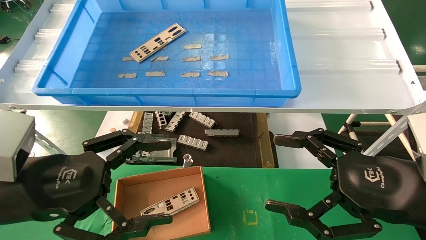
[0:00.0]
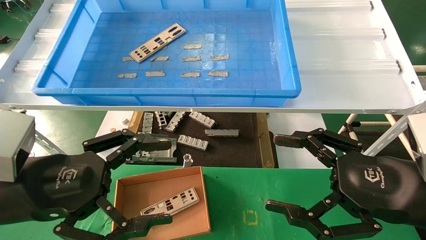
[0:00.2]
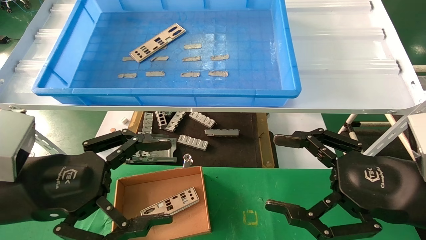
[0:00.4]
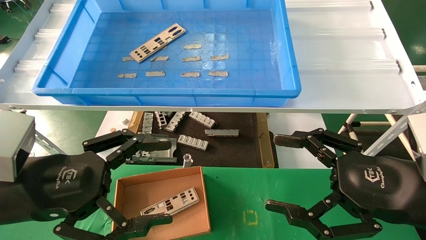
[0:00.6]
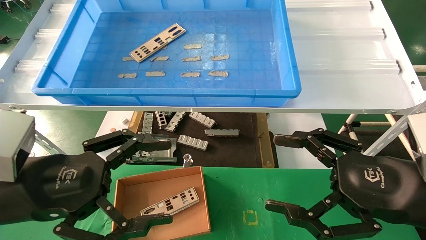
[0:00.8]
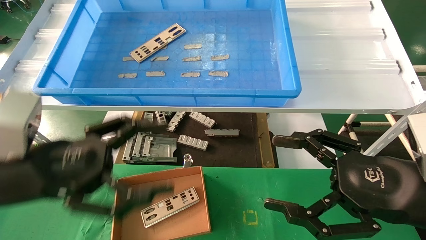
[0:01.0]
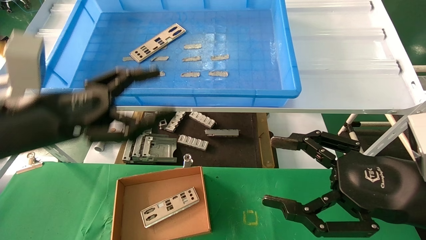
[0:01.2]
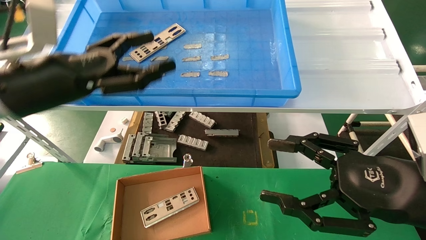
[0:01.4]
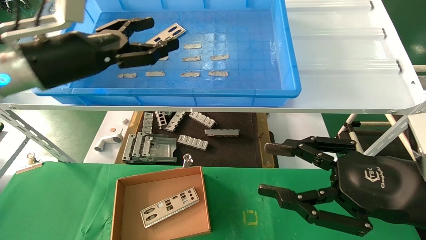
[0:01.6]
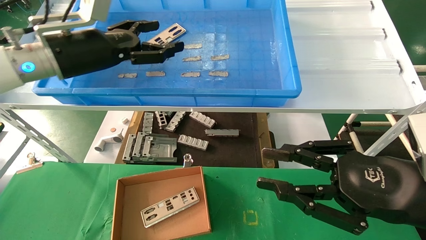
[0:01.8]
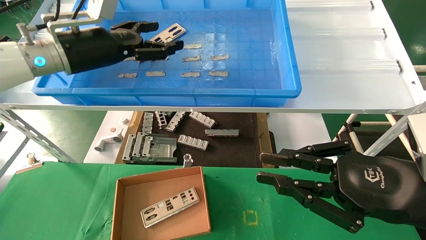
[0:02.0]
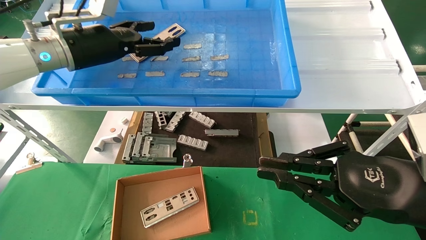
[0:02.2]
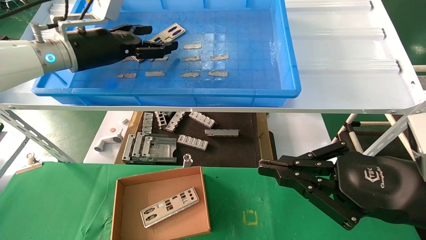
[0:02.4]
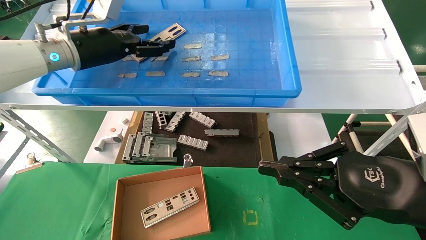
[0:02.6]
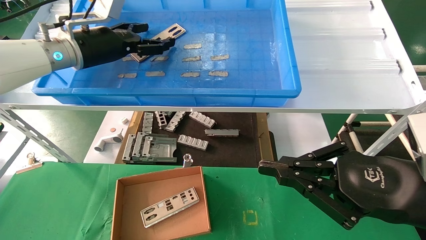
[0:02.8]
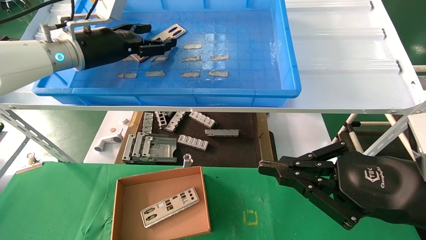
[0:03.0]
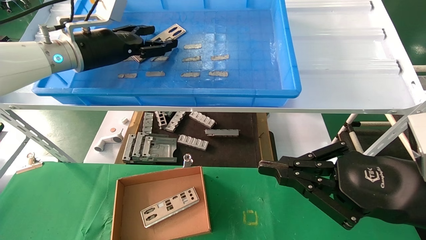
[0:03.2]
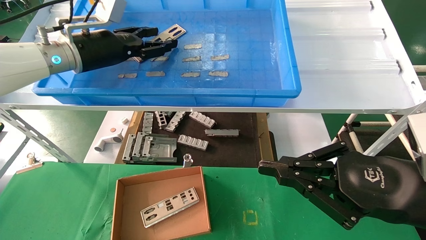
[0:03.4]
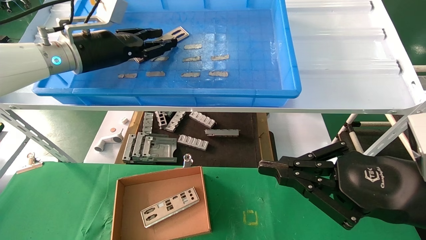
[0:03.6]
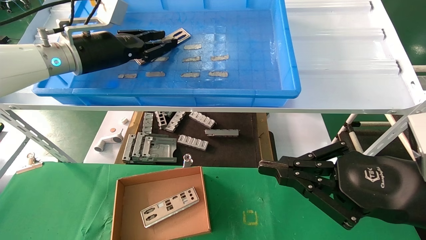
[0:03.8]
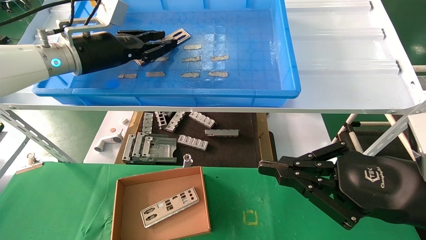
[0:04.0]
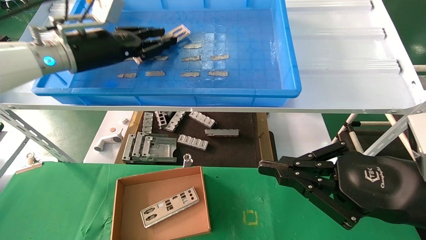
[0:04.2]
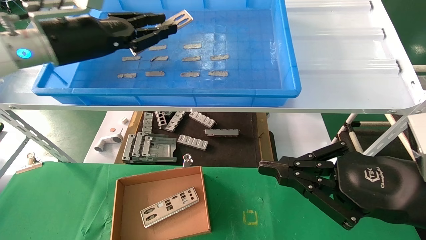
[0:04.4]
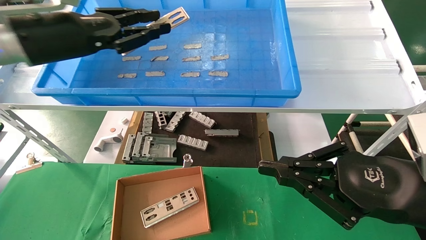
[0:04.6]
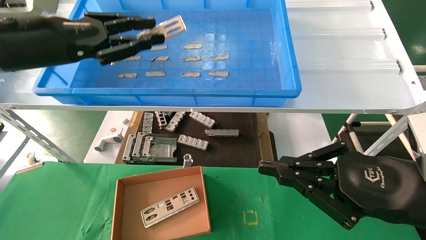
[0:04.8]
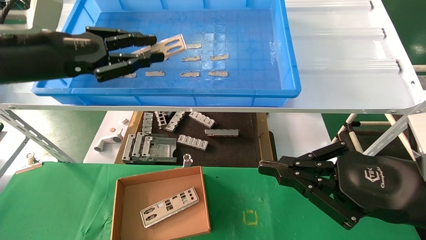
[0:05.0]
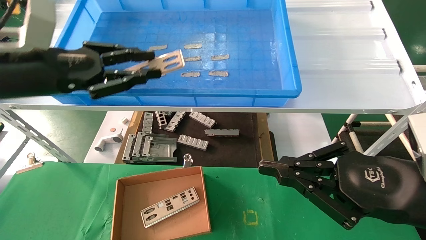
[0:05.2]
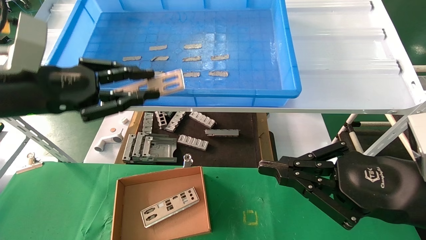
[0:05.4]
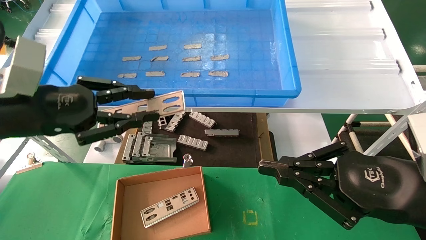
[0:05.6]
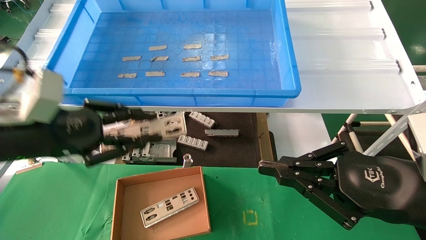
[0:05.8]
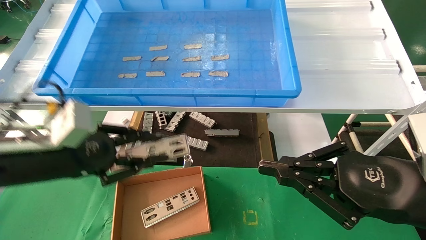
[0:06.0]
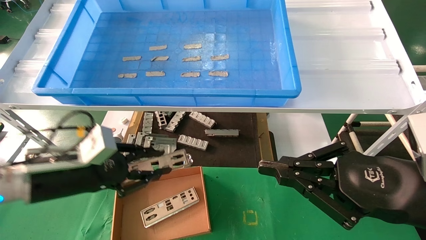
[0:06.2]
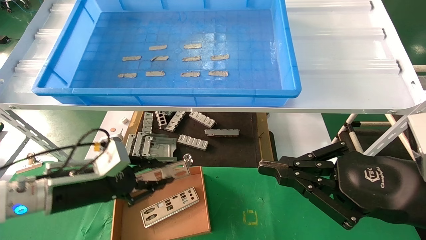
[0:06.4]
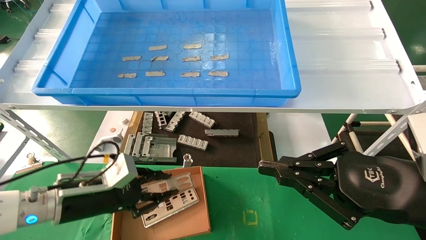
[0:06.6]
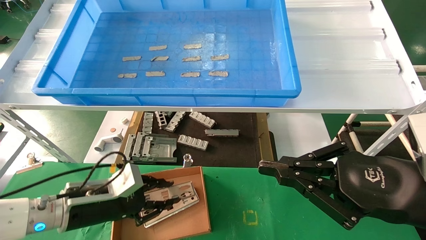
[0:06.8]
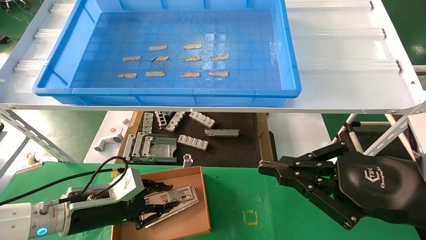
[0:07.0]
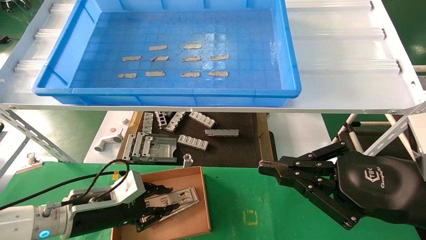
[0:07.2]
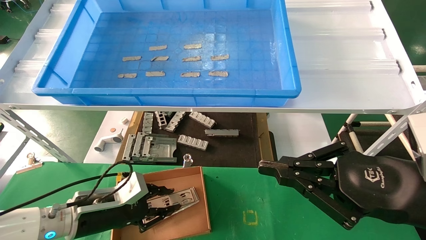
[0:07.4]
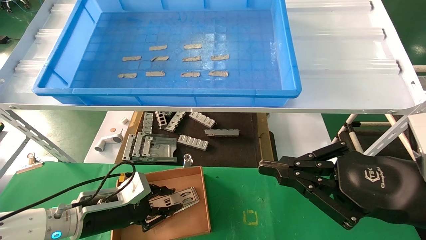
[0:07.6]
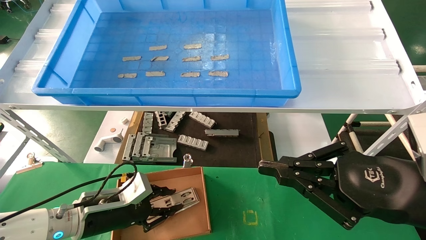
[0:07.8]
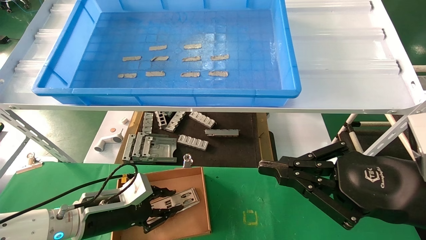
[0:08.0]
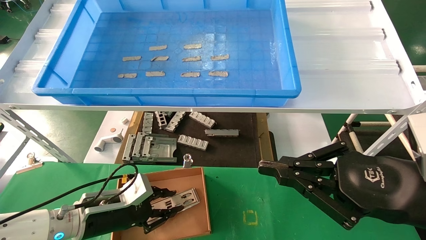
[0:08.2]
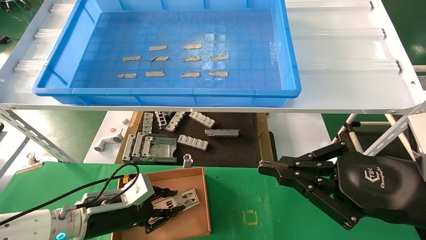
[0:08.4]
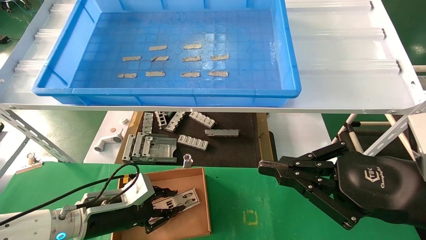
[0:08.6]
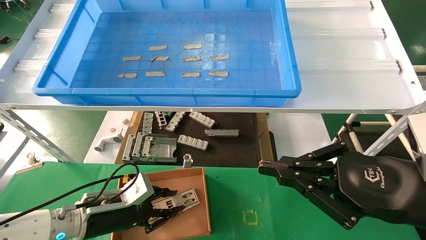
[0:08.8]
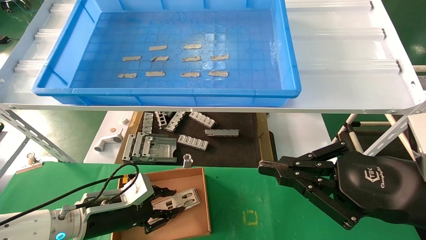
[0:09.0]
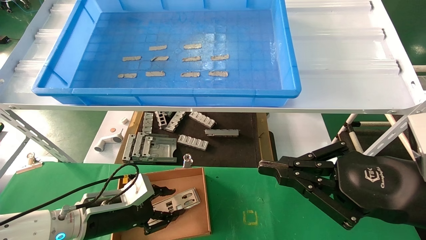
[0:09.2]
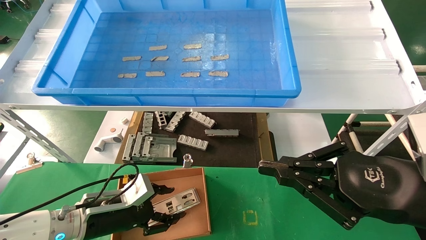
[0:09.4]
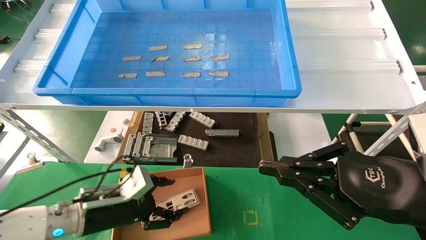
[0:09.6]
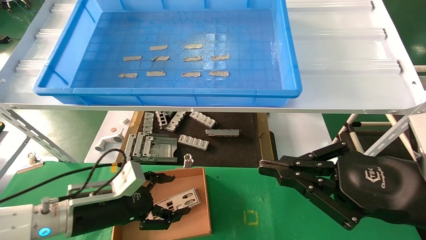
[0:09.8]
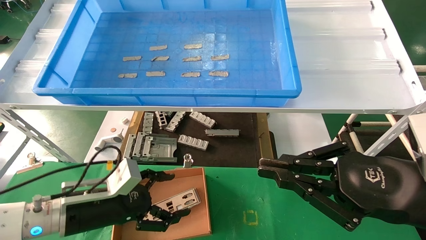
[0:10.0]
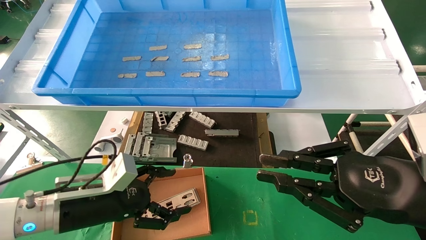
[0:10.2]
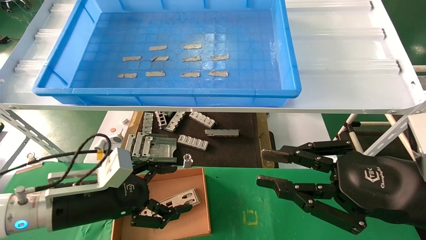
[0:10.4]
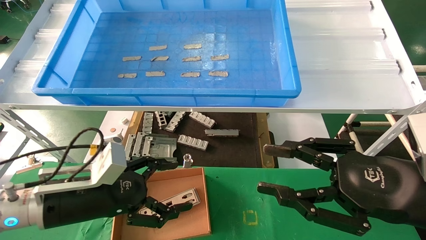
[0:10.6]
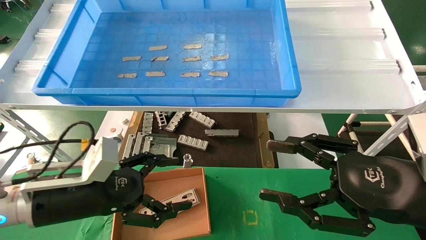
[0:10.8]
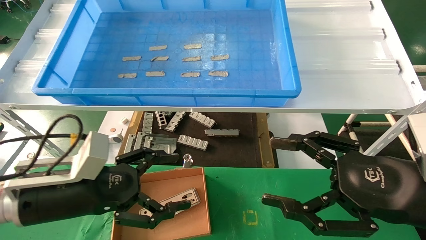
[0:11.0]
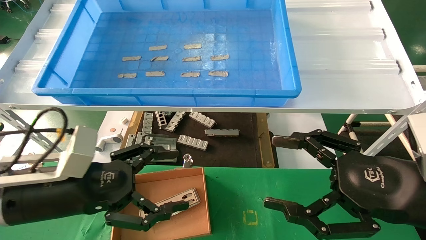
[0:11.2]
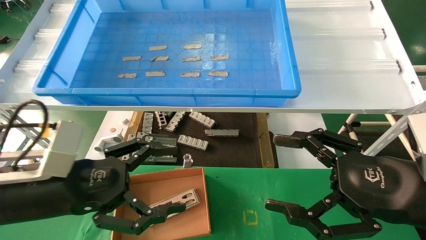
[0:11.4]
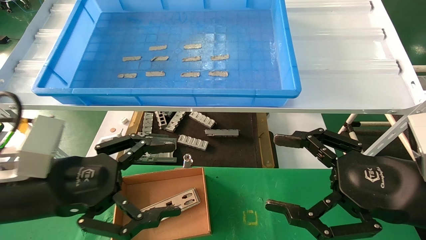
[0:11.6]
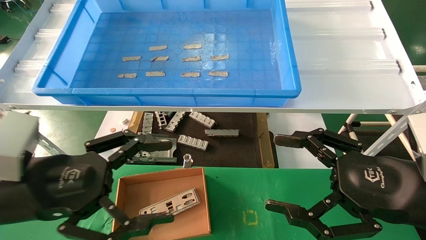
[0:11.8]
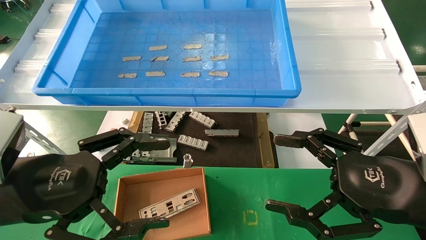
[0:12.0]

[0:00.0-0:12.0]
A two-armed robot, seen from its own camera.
Task of the whole recording: pick up the parts on the tray and put them in the cardboard box.
Step, 0:01.2 to 0:04.2: Pick up the IO bracket from the container box.
Step, 0:04.4 to 0:09.0: Place the IO bracket into the ingredient slot.
0:00.0 to 0:01.6: The left gripper travels forward and upward by about 20 cm.
0:01.6 to 0:03.0: The right gripper closes up; the left gripper shifts approximately 10 cm forward.
0:03.0 to 0:04.4: The left gripper is displaced backward by roughly 5 cm, and closes.
0:04.4 to 0:06.0: The left gripper travels downward and backward by approximately 20 cm.
0:06.0 to 0:07.6: The left gripper heads downward, covering about 15 cm.
0:07.6 to 0:09.0: Neither gripper changes place.
0:09.0 to 0:10.4: The left gripper is displaced upward by some 5 cm, and opens.
0:10.4 to 0:12.0: The left gripper is displaced upward and backward by approximately 15 cm, while the right gripper opens its fingers.

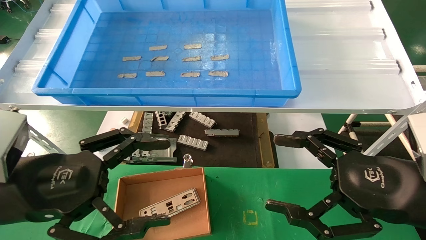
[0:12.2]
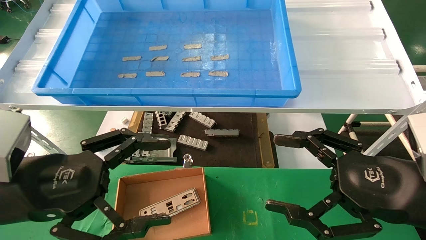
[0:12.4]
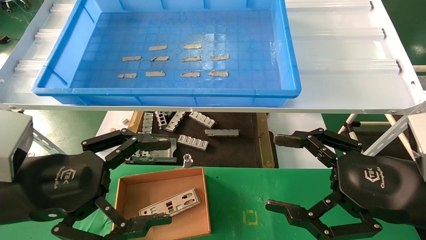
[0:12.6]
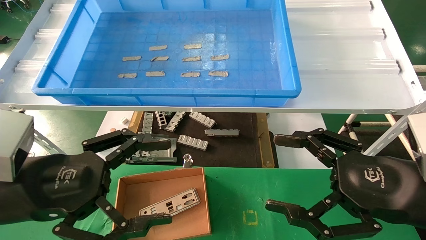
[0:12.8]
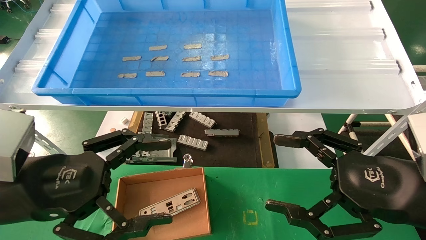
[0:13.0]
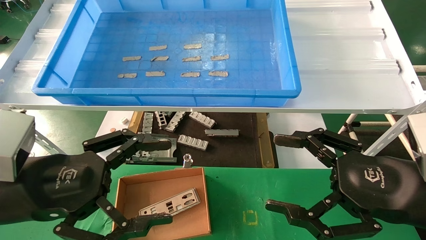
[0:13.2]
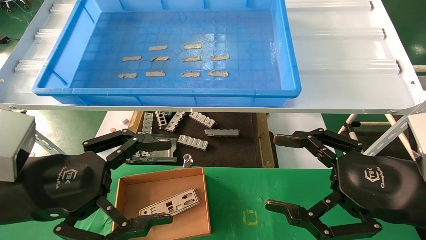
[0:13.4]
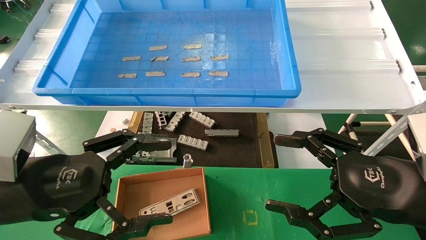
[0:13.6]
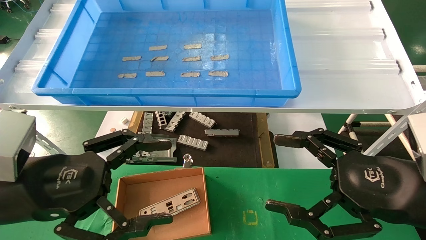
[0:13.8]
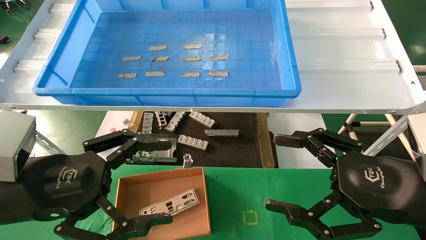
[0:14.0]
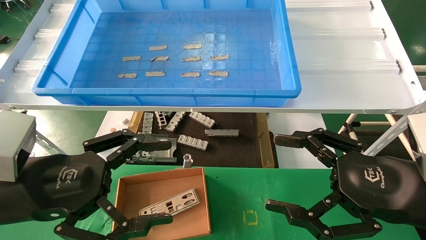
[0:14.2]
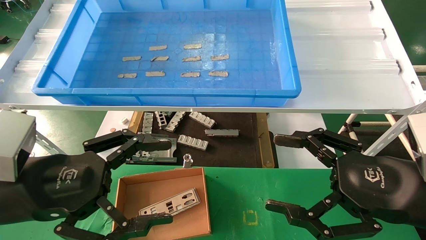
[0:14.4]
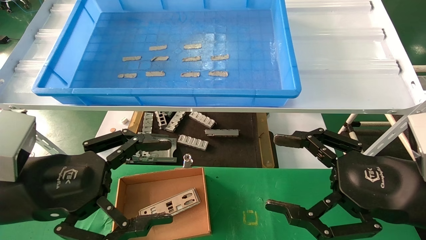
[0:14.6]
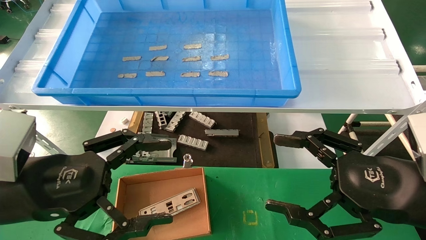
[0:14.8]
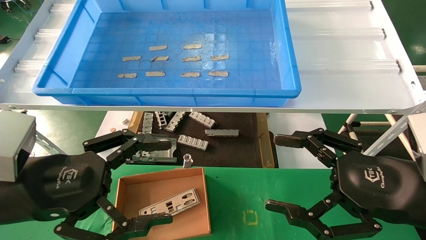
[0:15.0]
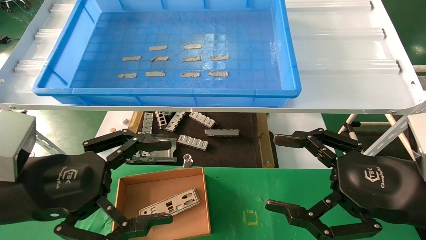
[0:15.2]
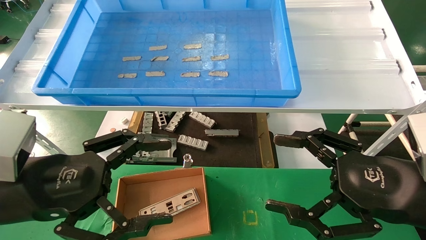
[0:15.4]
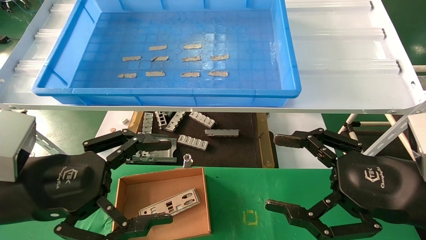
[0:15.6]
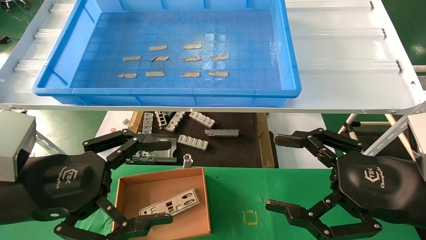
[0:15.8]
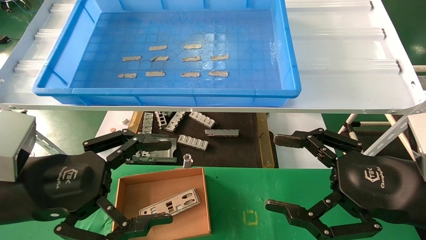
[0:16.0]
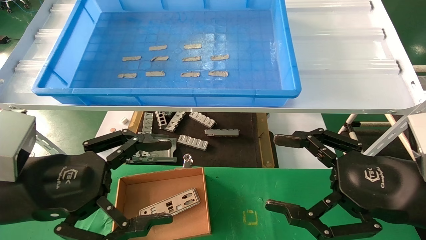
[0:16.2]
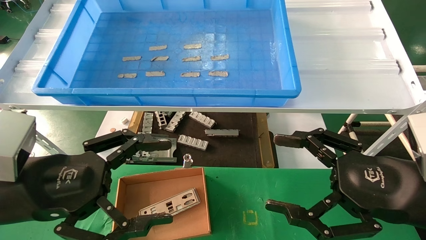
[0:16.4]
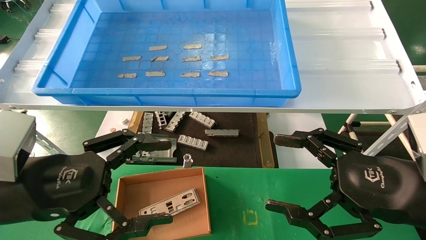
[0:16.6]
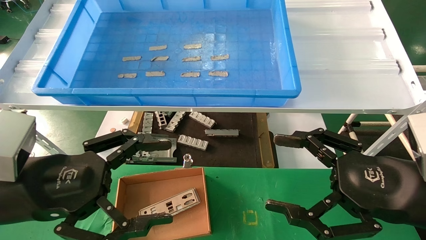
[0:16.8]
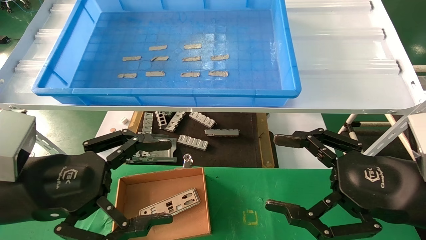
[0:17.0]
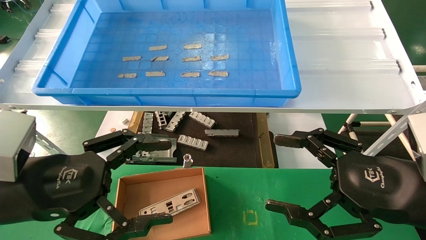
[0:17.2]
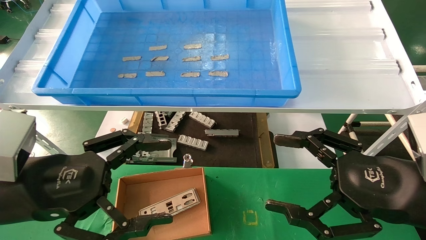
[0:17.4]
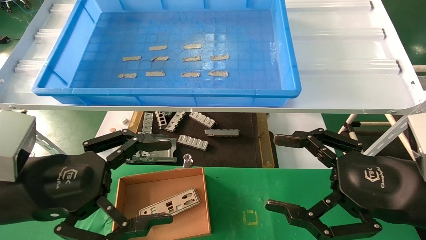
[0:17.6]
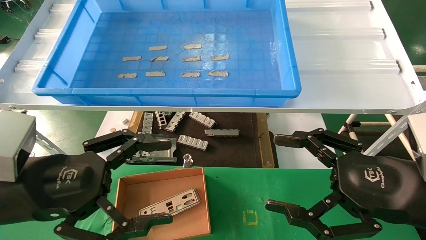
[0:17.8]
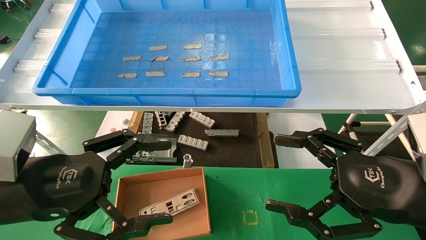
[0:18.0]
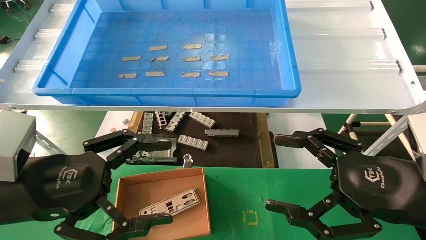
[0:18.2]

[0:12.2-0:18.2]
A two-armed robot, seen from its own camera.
Task of the whole recording: pick up the parts on the tray and put them in the cardboard box.
0:12.2 to 0:18.2: The two grippers keep their place.
